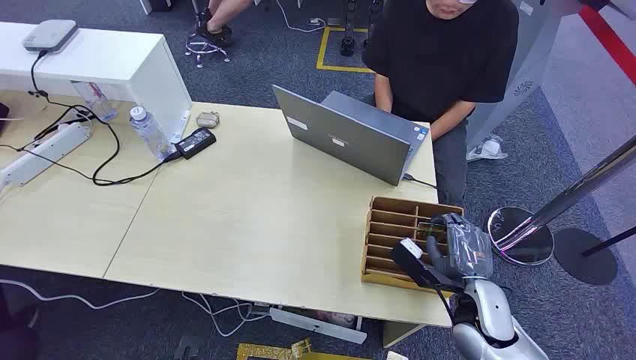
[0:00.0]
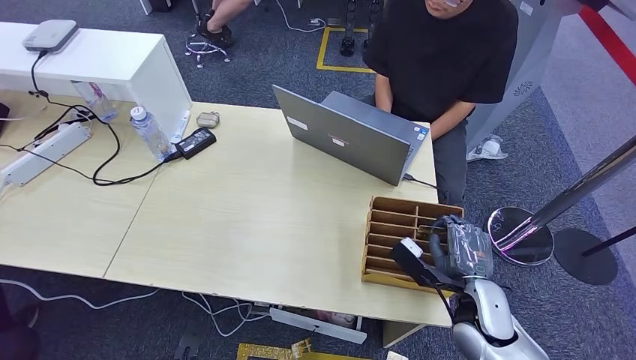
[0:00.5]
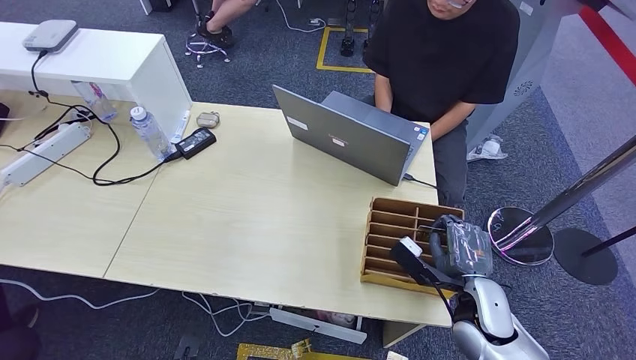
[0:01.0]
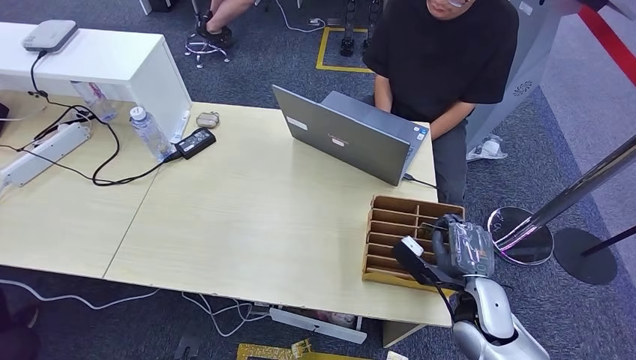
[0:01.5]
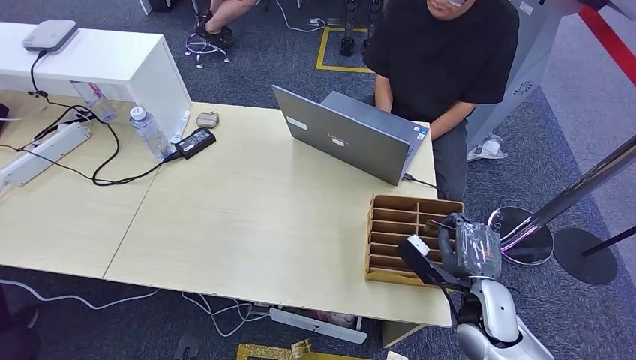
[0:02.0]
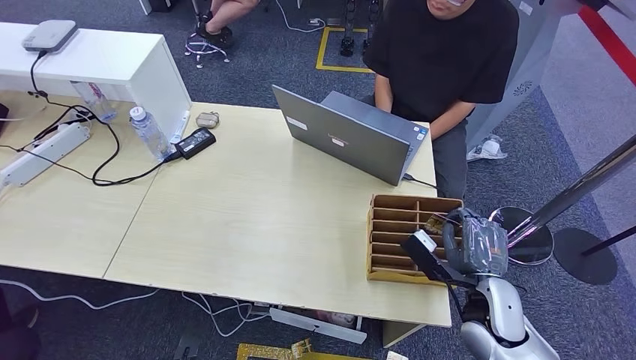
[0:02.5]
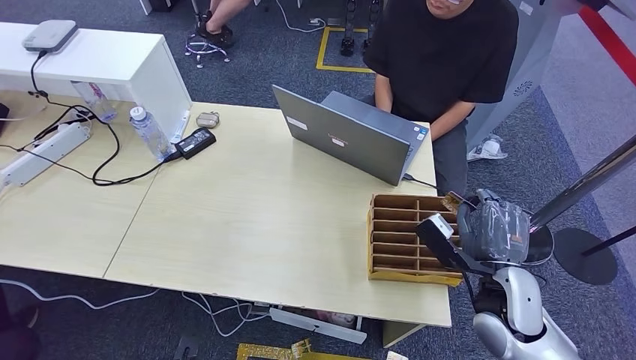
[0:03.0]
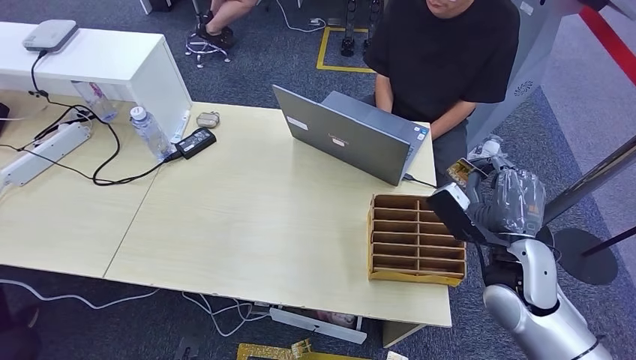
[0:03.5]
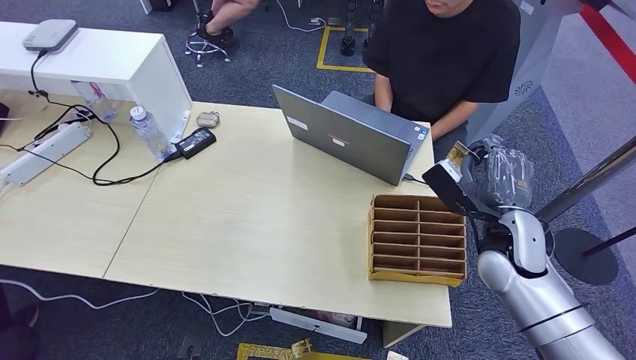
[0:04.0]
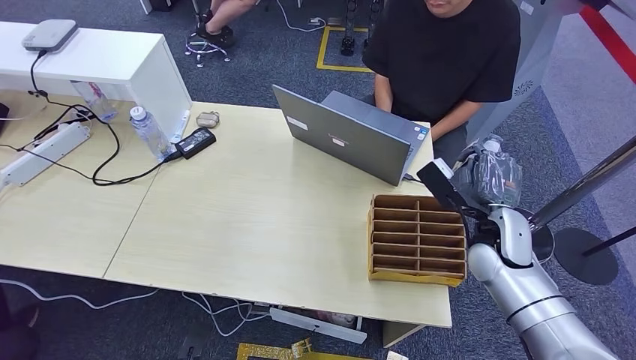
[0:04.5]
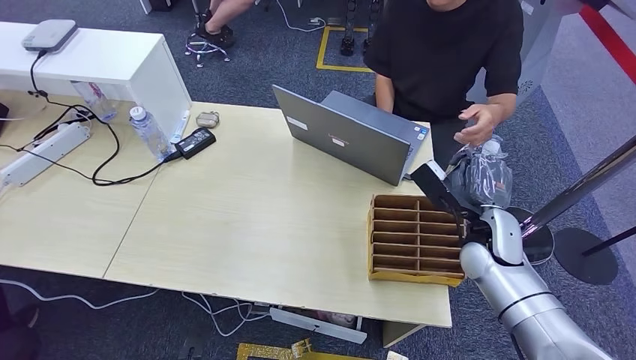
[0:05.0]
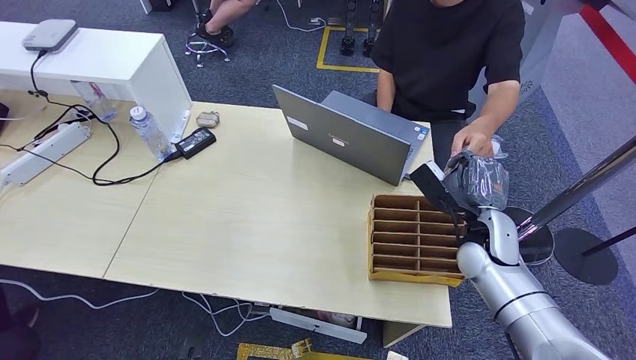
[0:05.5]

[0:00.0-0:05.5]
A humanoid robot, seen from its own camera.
Step, 0:00.0 to 0:02.5: Pick up the room card from the card holder.
Step, 0:05.0 to 0:05.5: Hand the room card to the target.
0:02.0 to 0:03.5: The right hand shifts roughly 10 cm upward.
0:03.5 to 0:05.5: The right hand is displaced forward by about 10 cm.

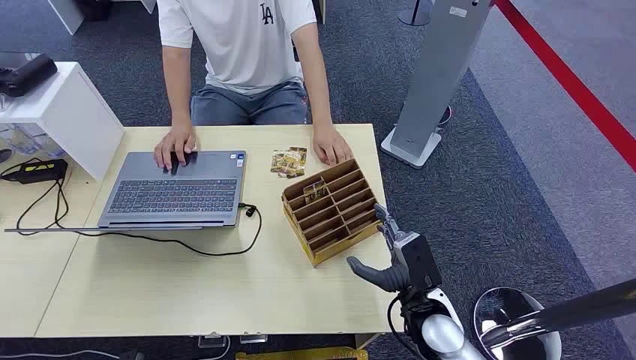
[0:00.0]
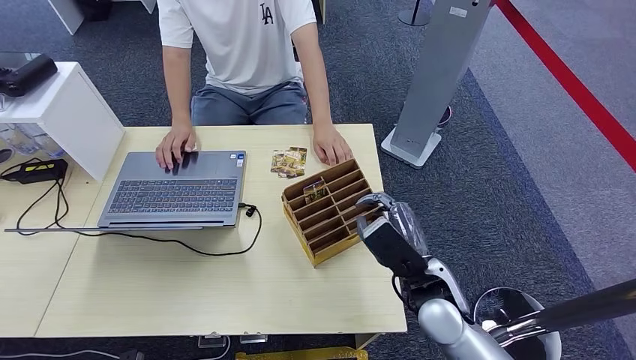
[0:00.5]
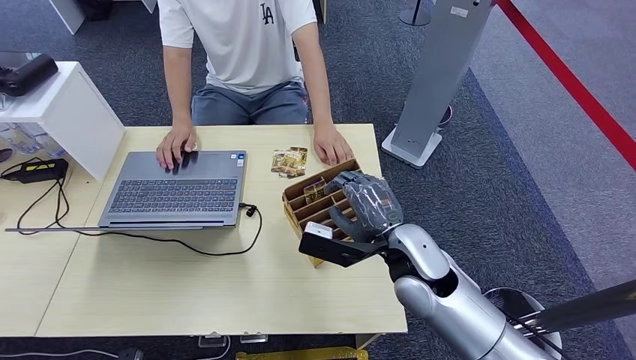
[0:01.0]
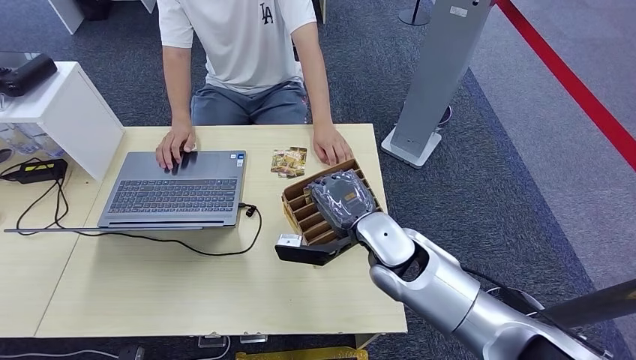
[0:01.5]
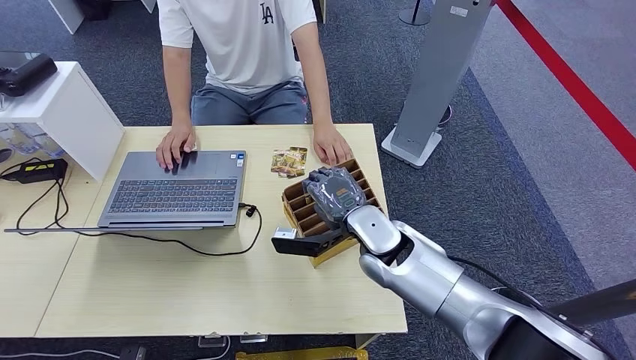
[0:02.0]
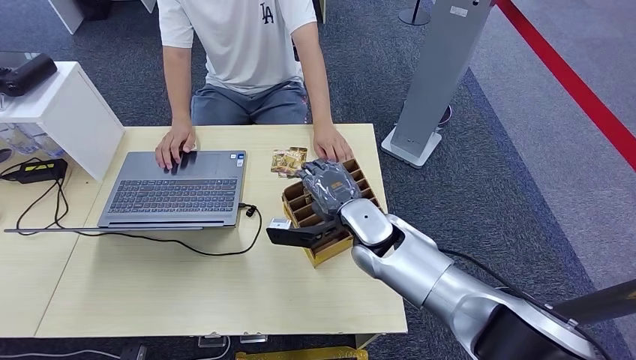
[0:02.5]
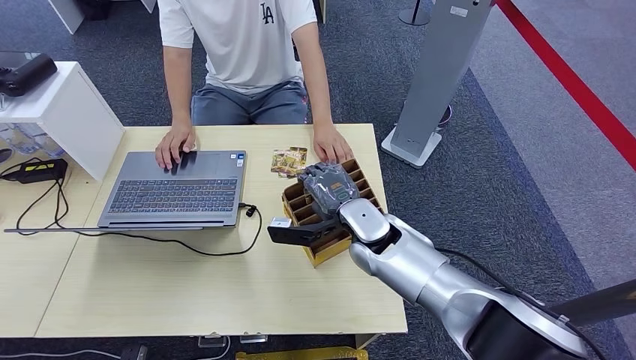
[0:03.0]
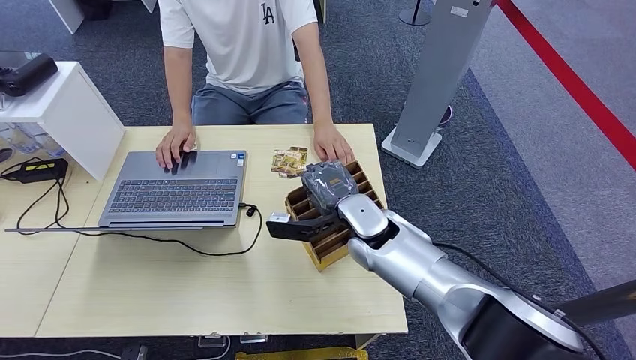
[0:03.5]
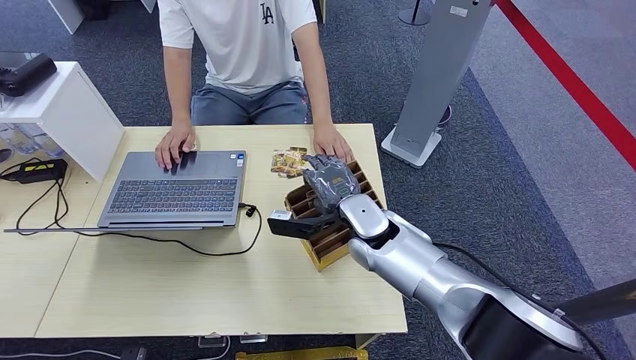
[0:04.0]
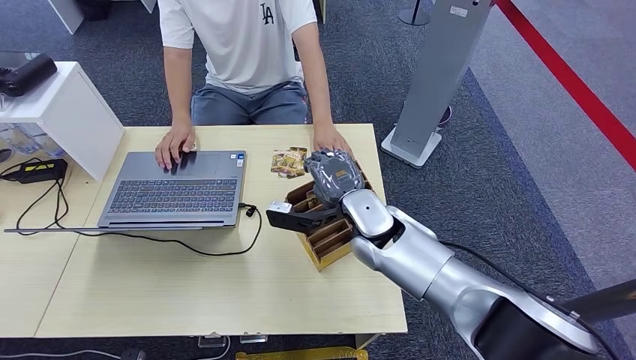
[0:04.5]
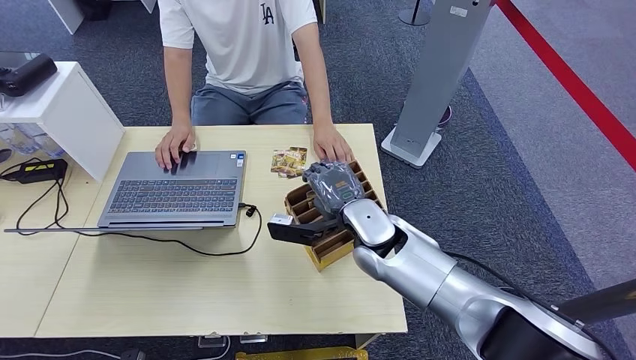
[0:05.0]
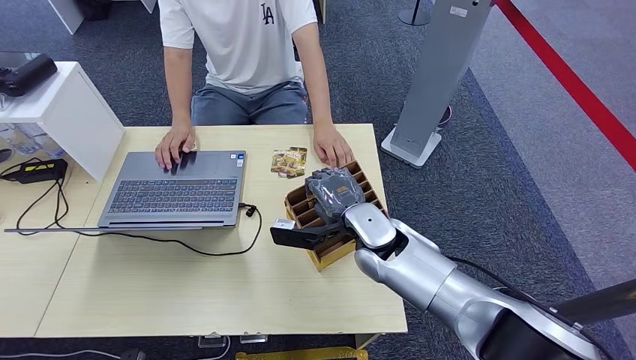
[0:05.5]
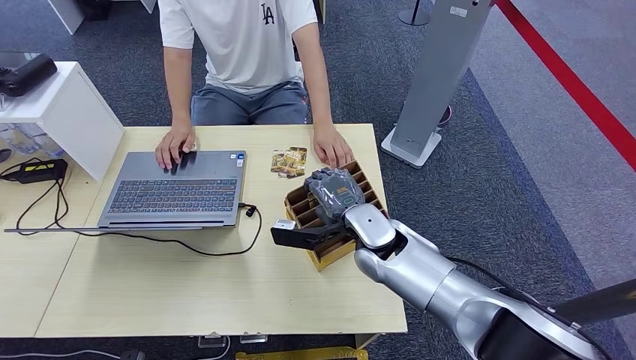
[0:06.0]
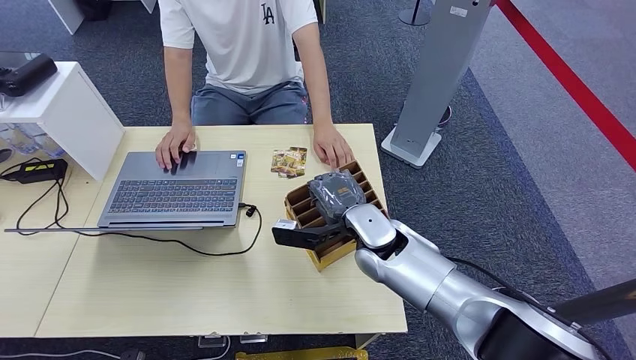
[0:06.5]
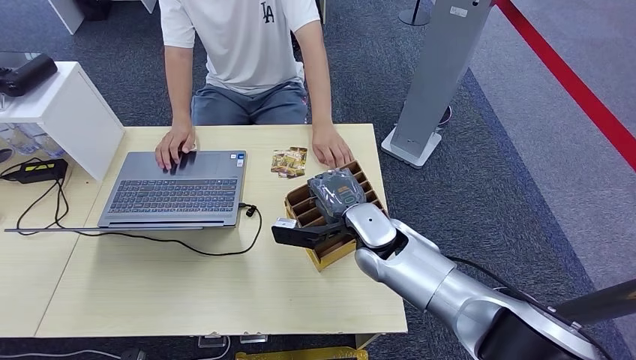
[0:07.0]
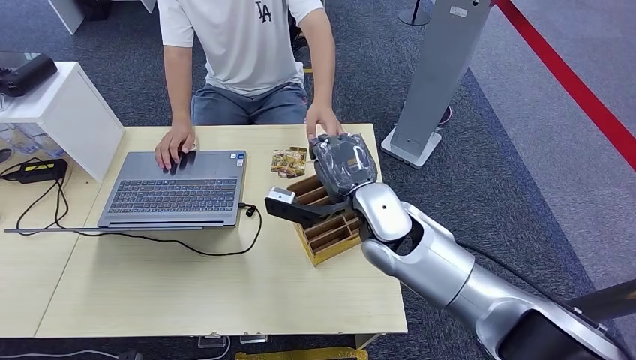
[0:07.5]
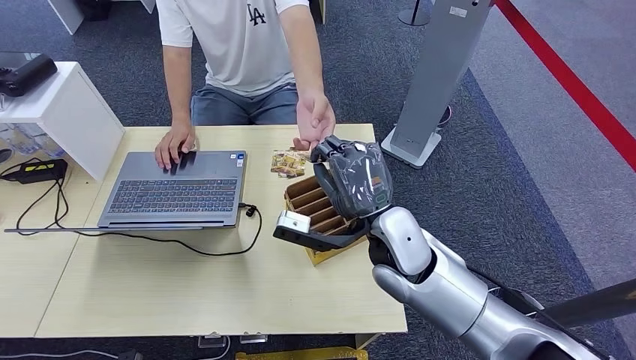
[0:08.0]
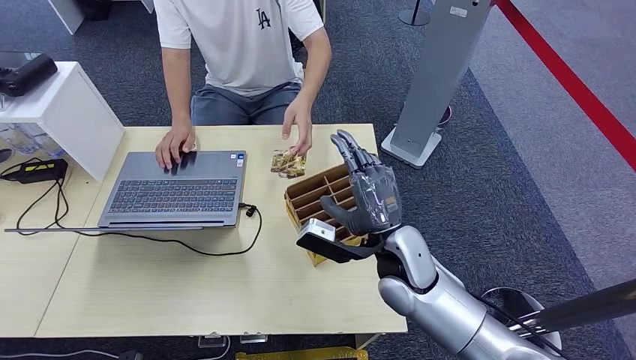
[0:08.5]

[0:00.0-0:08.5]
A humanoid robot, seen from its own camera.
Step, 0:00.0 to 0:07.0: Pick up the room card from the card holder.
Step, 0:07.5 to 0:08.5: Hand the room card to the target.
0:02.0 to 0:06.5: There are only small adjustments of the hands.
0:06.5 to 0:08.5: The right hand is displaced backward by about 5 cm.
